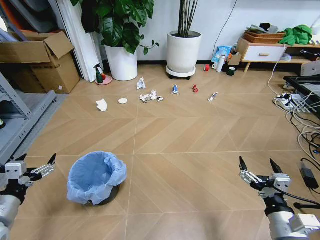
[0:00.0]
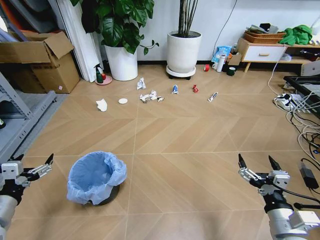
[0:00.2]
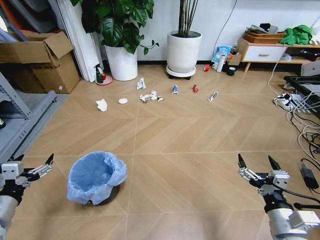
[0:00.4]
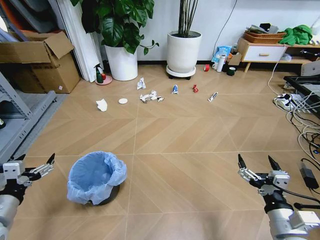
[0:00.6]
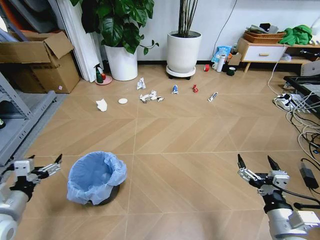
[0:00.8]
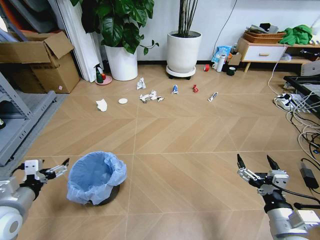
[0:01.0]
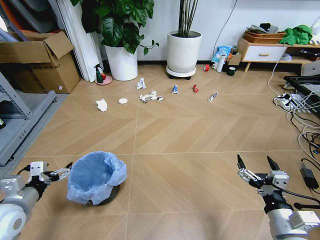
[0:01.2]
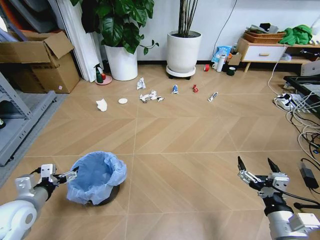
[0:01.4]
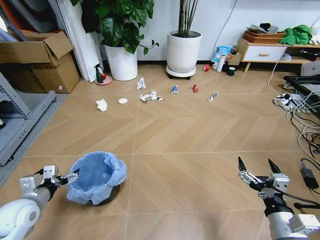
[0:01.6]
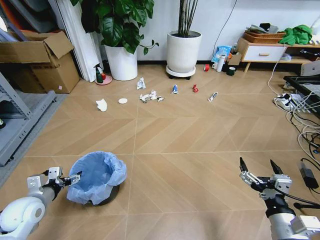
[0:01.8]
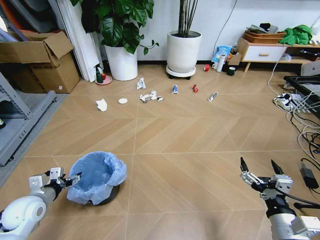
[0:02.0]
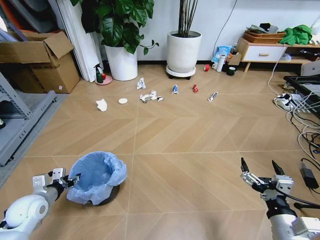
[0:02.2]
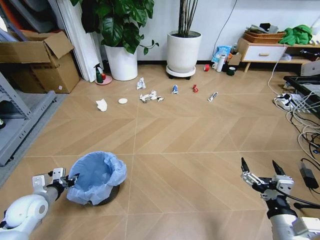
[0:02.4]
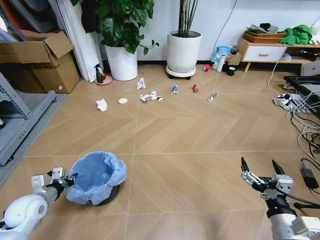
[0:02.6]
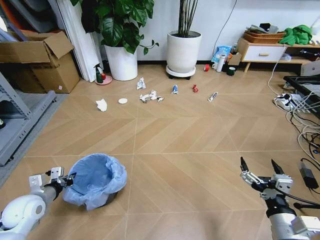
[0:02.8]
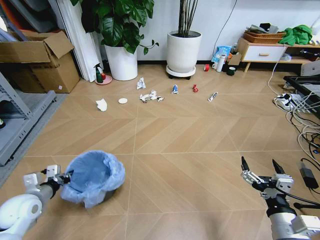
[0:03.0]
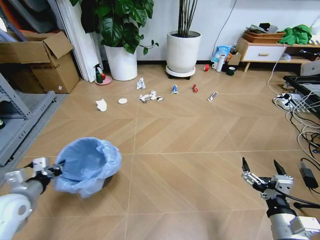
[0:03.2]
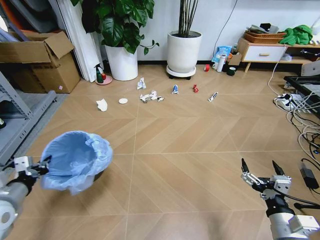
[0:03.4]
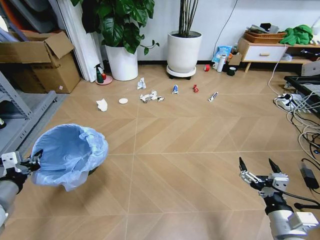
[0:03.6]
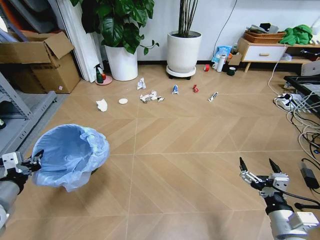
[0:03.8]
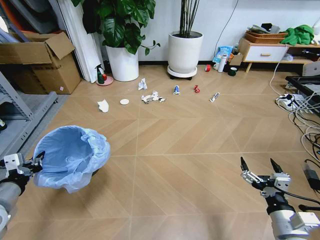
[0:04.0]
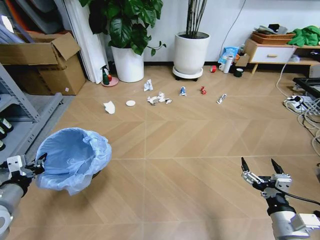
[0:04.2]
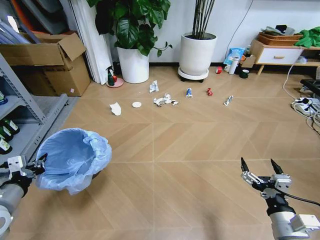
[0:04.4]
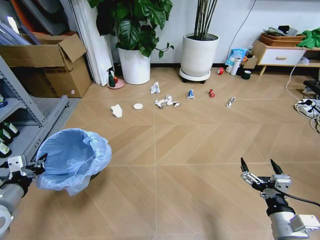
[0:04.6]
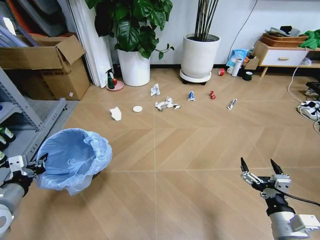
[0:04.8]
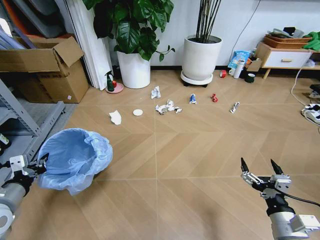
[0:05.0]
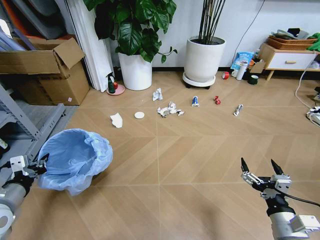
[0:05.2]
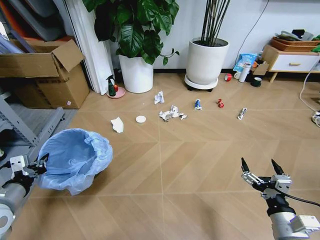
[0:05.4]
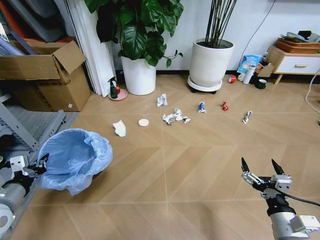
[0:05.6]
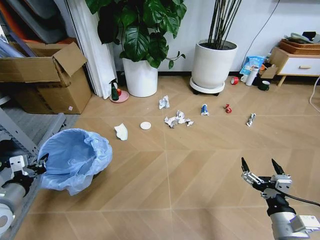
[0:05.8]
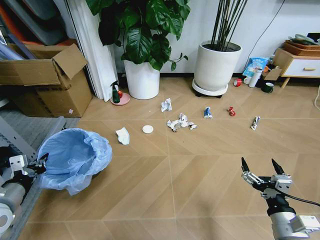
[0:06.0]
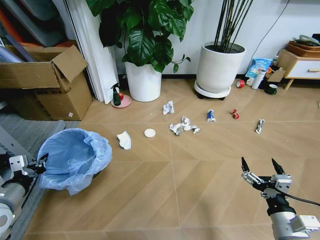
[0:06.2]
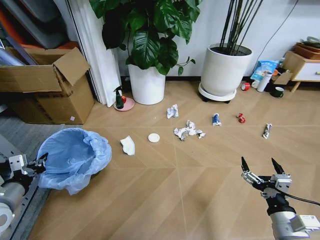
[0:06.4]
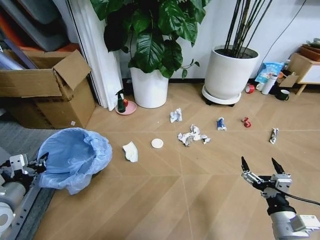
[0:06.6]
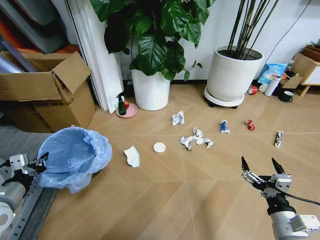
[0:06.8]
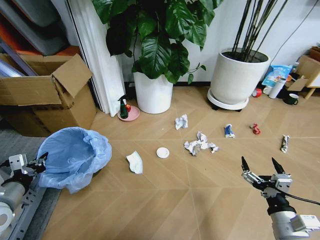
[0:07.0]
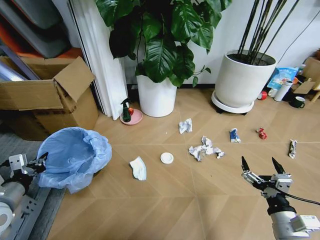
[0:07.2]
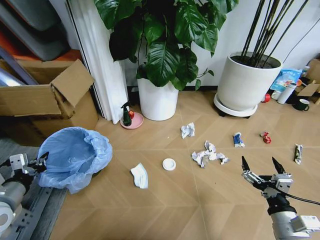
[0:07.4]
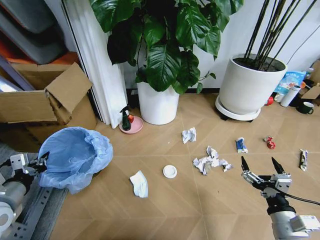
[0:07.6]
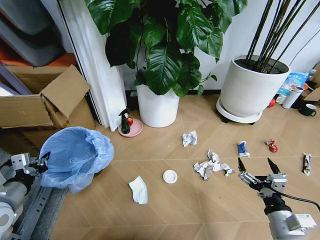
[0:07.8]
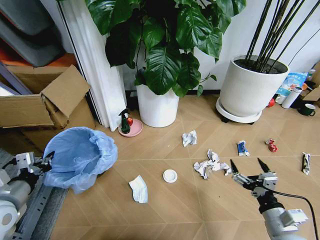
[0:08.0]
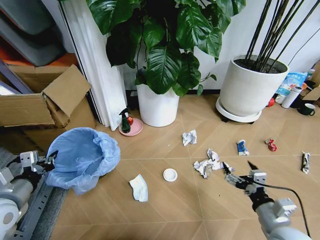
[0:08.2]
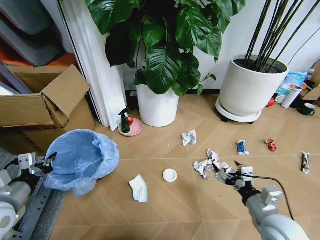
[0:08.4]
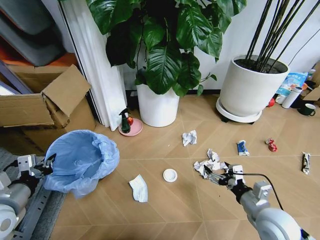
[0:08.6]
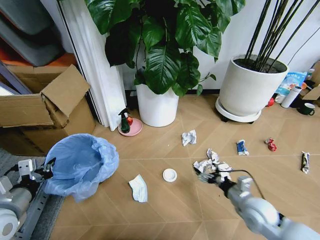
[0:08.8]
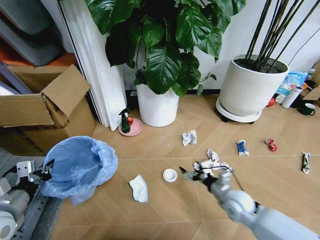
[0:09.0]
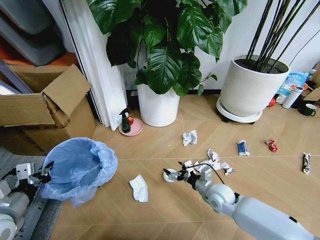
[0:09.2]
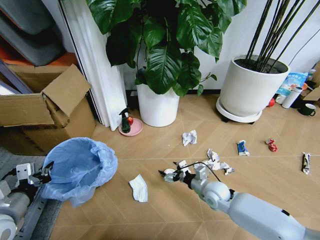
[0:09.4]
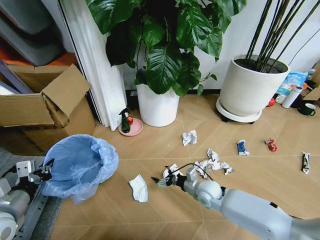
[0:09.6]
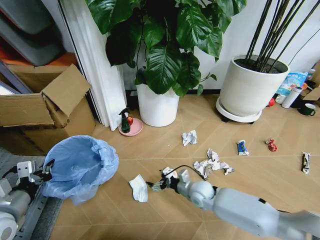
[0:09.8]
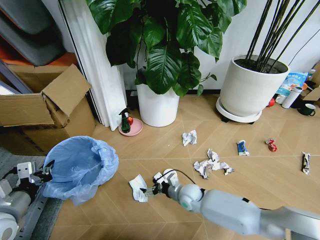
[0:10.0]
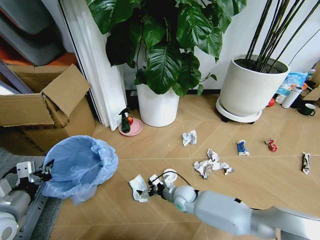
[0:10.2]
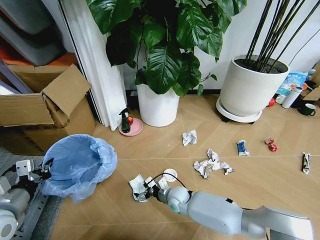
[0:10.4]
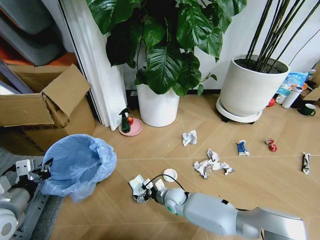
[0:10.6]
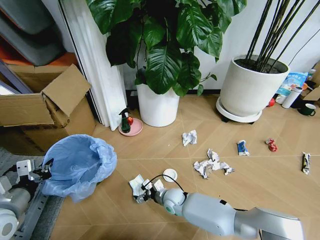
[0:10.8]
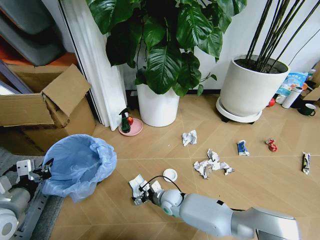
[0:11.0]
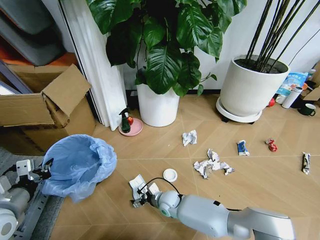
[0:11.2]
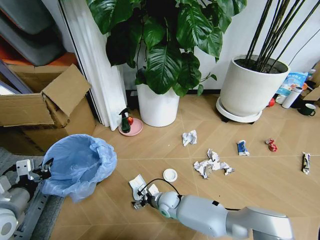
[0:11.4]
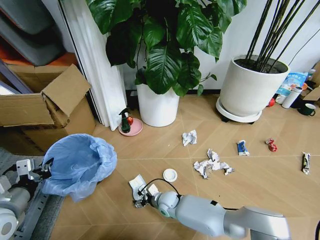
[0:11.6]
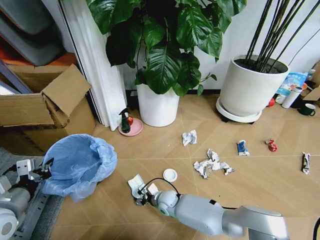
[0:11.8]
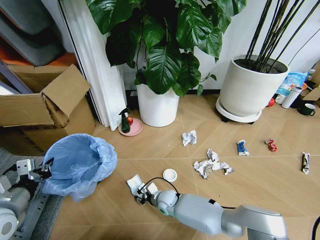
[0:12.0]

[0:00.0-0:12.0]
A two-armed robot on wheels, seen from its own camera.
Task of the whole recording: Pick up the trash bin and place the garbage on the floor into it.
0:01.6 to 0:03.0: The left gripper closes up.
0:03.0 to 0:04.4: The left gripper is displaced upward and backward by some 10 cm.
0:07.6 to 0:09.0: The right gripper is displaced forward, downward and to the left by about 20 cm.
0:09.0 to 0:10.4: The right gripper shifts roughly 20 cm to the left and downward.
0:10.4 to 0:12.0: The right gripper ends up some 5 cm from where it was, and closes its fingers.

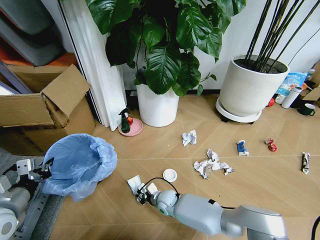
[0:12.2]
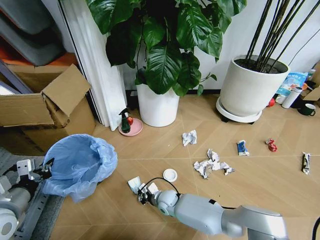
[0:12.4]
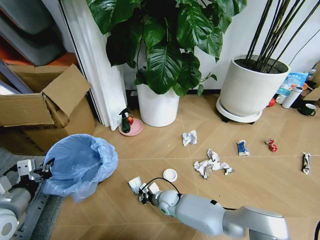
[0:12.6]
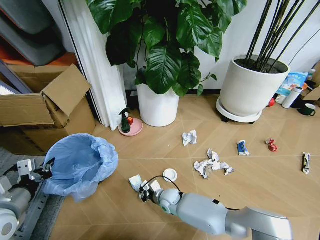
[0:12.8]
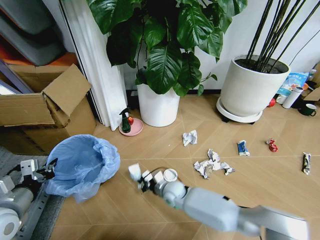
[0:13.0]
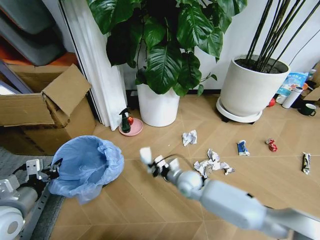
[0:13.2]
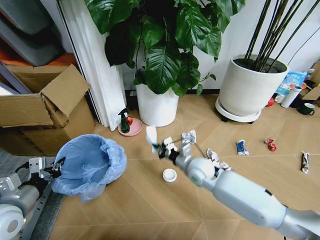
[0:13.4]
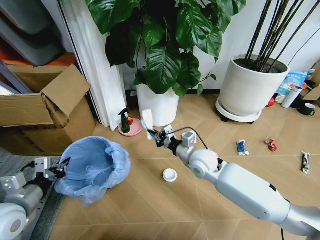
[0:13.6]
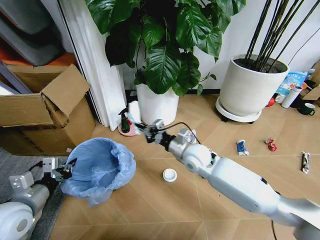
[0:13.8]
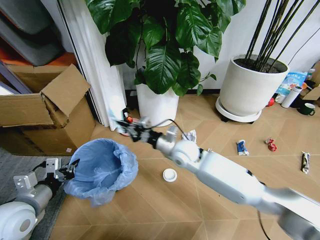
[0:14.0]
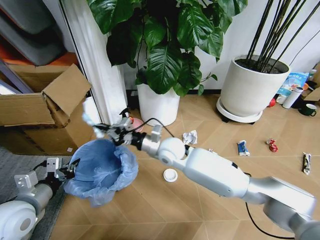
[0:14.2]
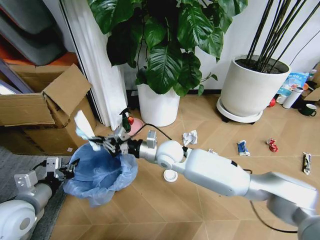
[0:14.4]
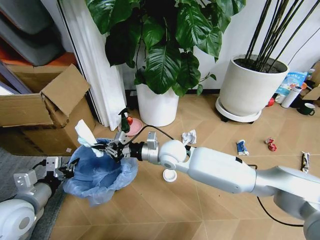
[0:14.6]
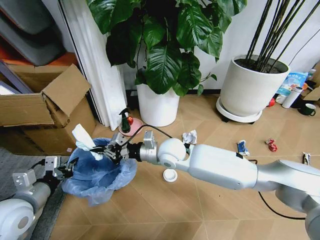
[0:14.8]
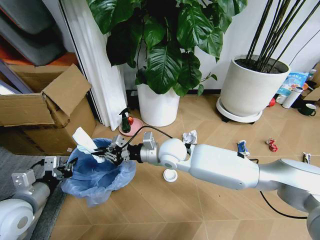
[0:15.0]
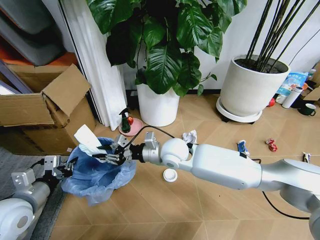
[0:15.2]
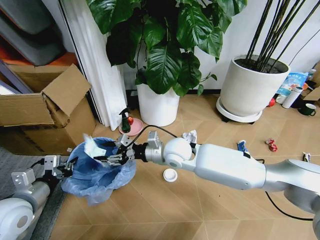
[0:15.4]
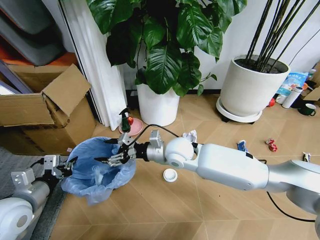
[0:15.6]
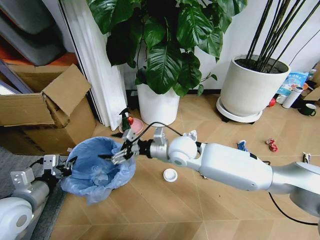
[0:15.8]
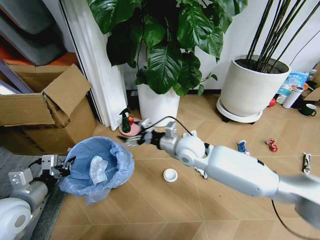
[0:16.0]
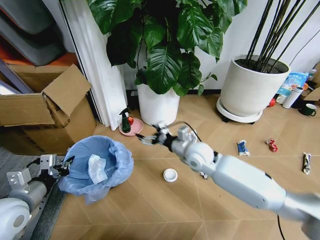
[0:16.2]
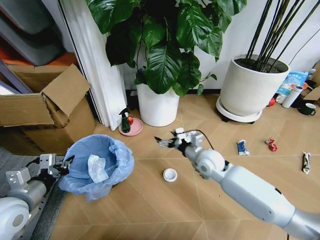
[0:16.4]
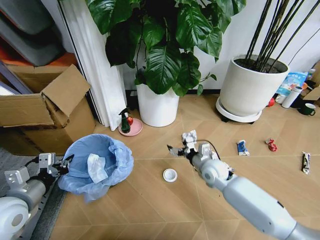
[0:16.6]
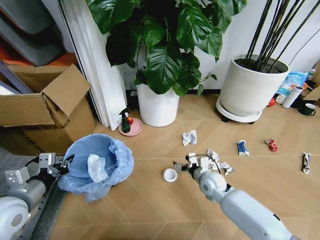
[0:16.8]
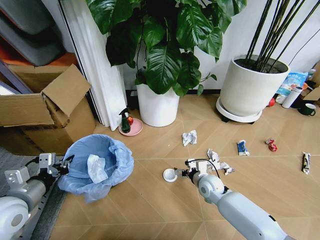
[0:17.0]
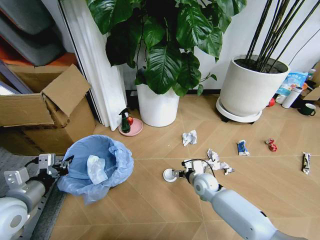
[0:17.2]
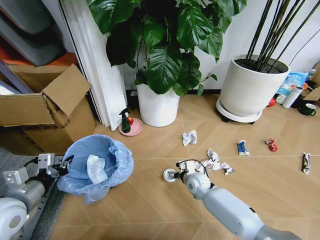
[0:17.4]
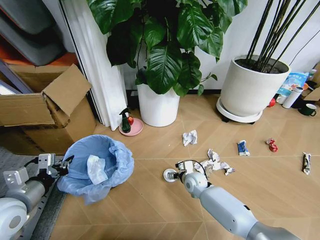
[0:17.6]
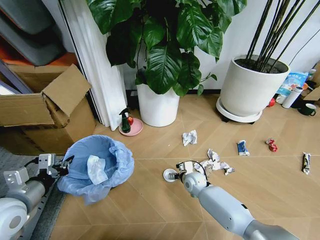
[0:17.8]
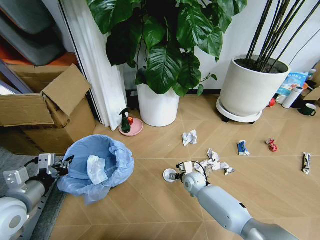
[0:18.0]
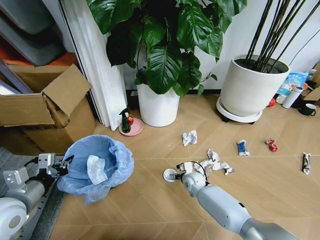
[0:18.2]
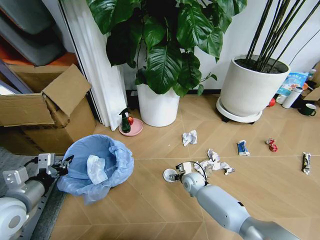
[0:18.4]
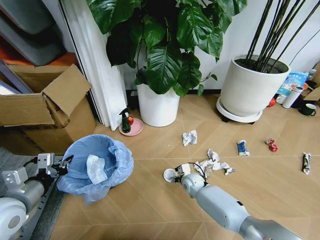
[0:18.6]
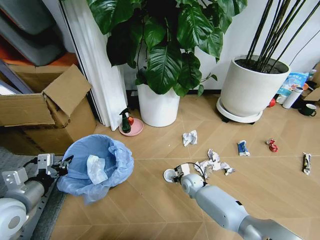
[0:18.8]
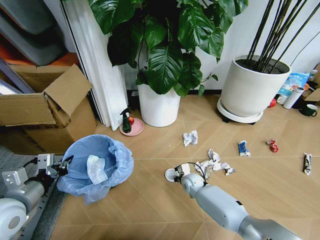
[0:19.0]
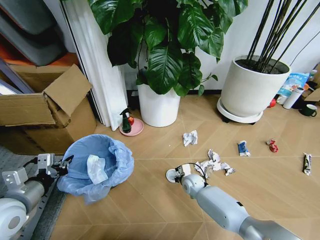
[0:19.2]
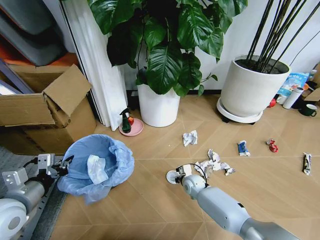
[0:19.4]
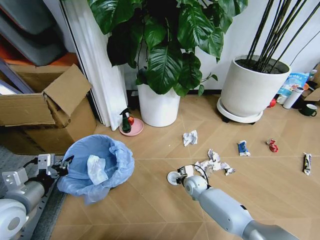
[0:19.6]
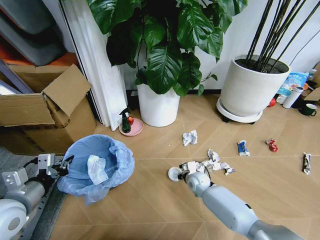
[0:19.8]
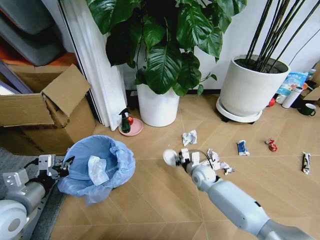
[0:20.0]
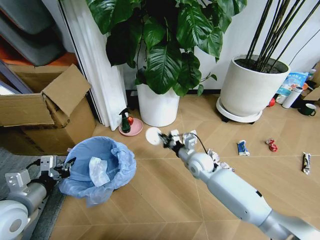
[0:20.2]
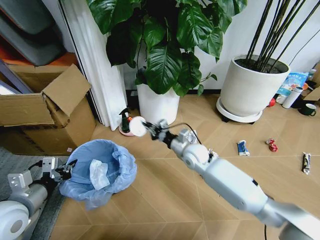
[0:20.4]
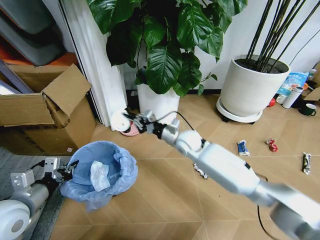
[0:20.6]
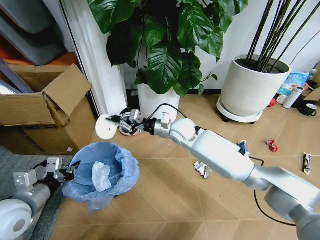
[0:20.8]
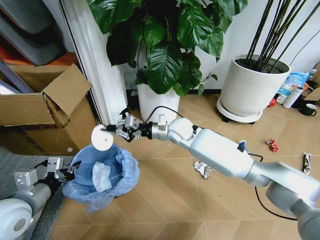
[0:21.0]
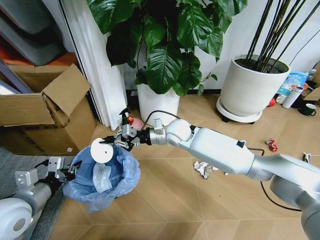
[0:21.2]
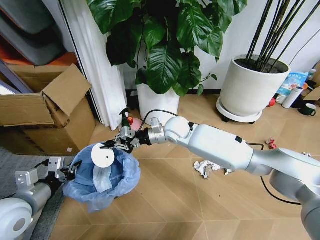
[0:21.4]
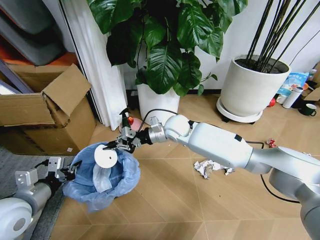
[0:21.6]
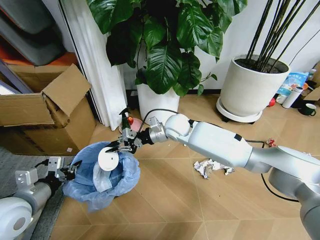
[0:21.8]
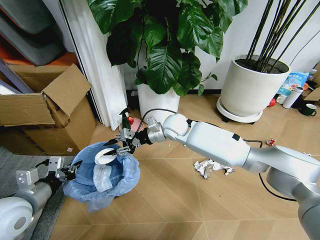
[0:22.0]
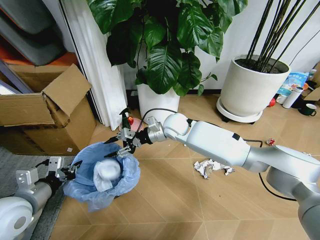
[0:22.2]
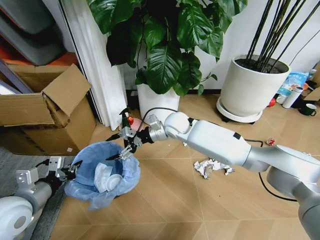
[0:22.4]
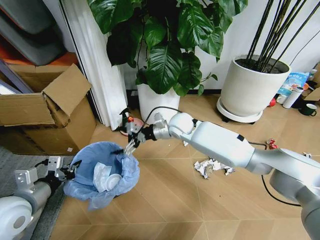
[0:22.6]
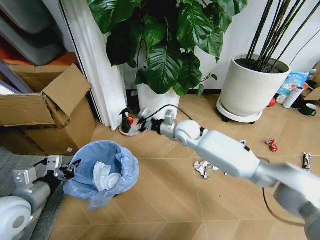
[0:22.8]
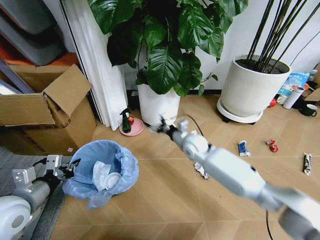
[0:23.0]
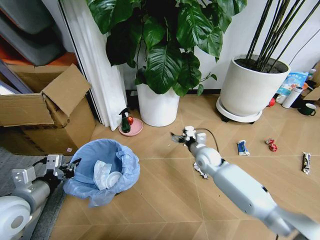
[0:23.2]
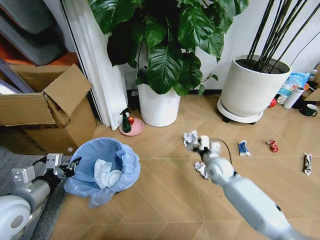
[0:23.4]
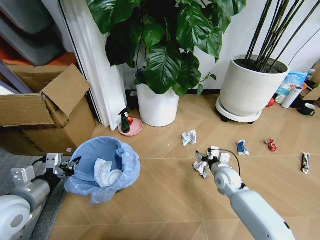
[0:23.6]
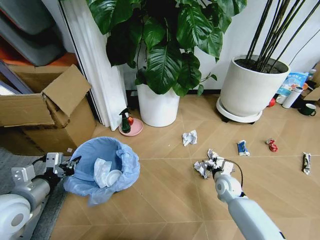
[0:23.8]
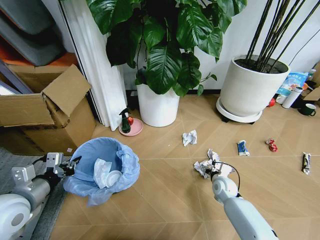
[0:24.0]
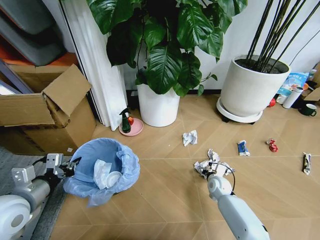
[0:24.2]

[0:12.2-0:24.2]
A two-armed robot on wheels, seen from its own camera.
Task of the whole recording: Pick up the trash bin and place the garbage on the floor into it.
0:12.2 to 0:13.8: The right gripper travels upward by approximately 25 cm.
0:13.8 to 0:15.2: The right gripper shifts approximately 10 cm to the left.
0:15.2 to 0:16.6: The right gripper moves to the right and downward, some 20 cm, and opens.
0:16.6 to 0:18.2: The right gripper heads downward, covering roughly 15 cm.
0:18.2 to 0:19.8: The right gripper closes.
0:19.8 to 0:21.2: The right gripper is displaced upward and to the left by about 25 cm.
0:21.2 to 0:22.6: The right gripper opens.
0:22.6 to 0:24.2: The right gripper travels downward, to the right and backward by approximately 35 cm.
